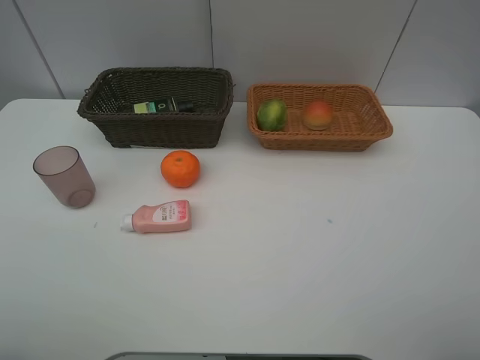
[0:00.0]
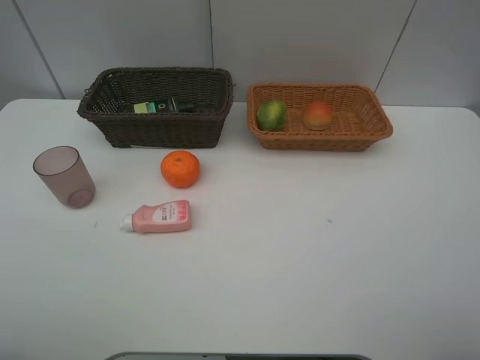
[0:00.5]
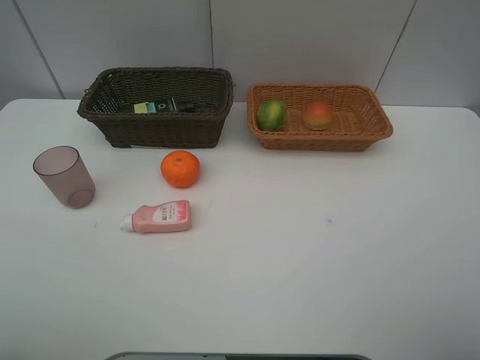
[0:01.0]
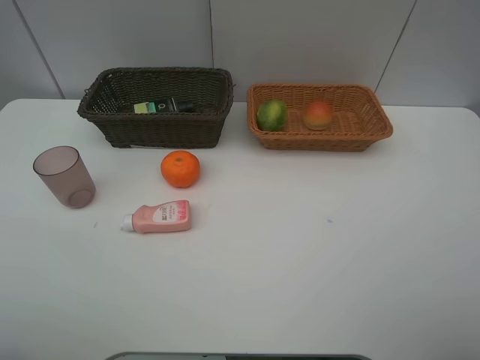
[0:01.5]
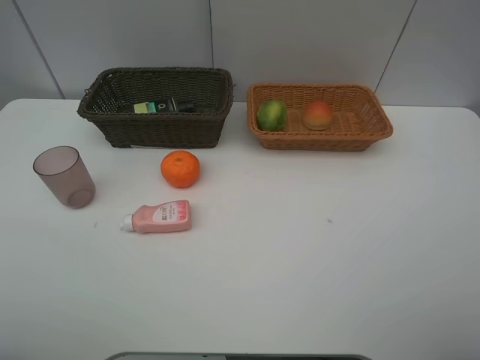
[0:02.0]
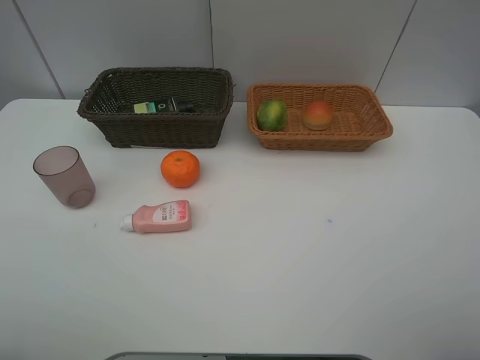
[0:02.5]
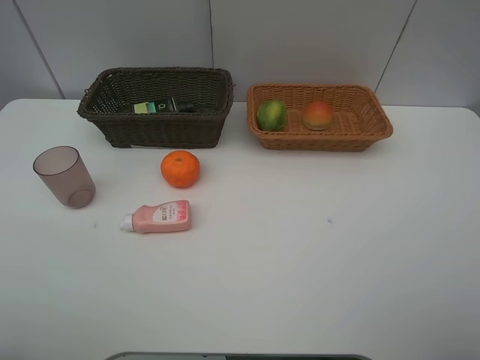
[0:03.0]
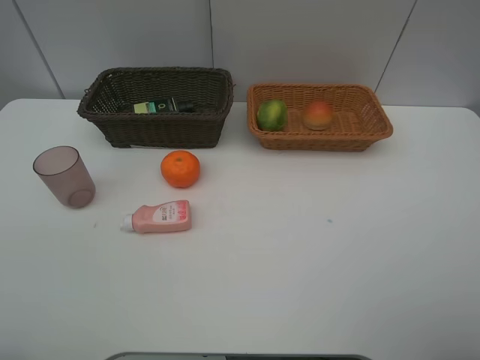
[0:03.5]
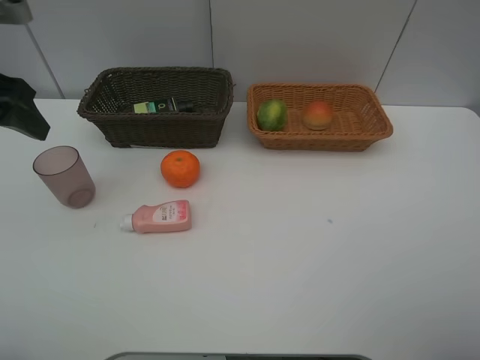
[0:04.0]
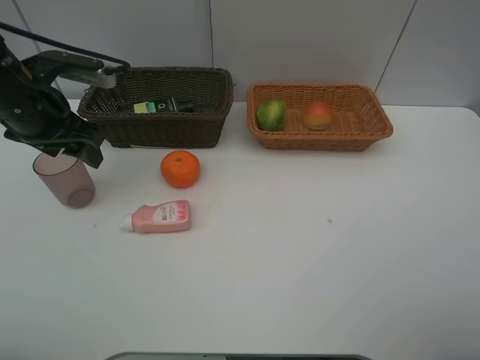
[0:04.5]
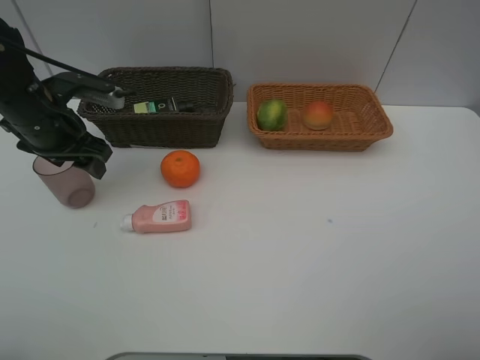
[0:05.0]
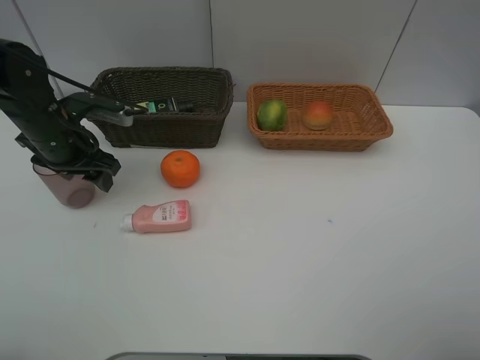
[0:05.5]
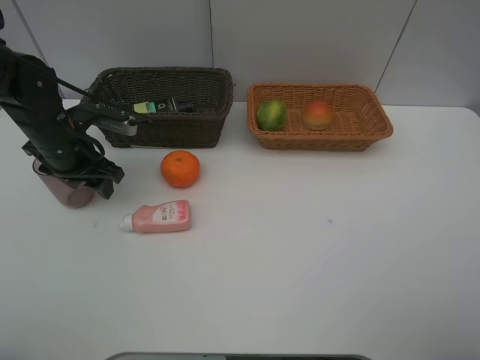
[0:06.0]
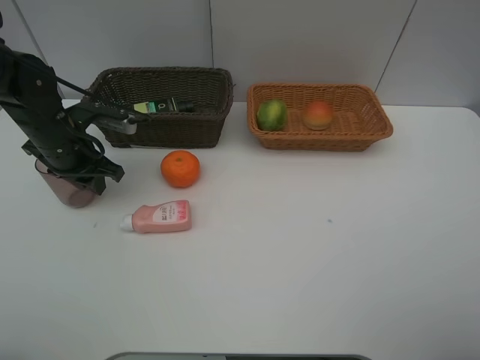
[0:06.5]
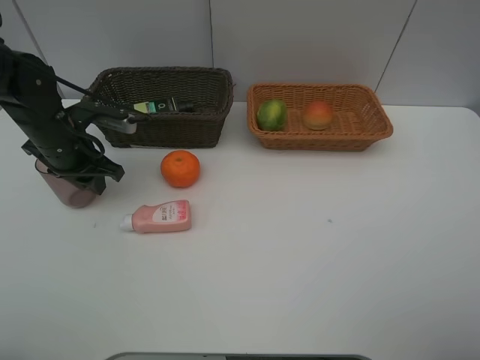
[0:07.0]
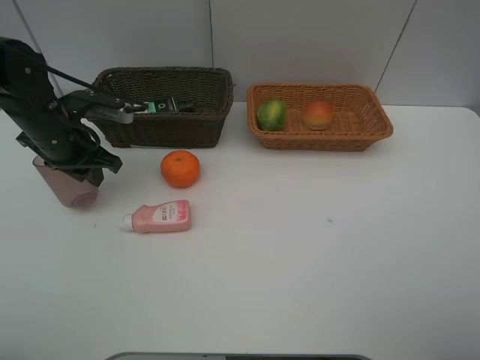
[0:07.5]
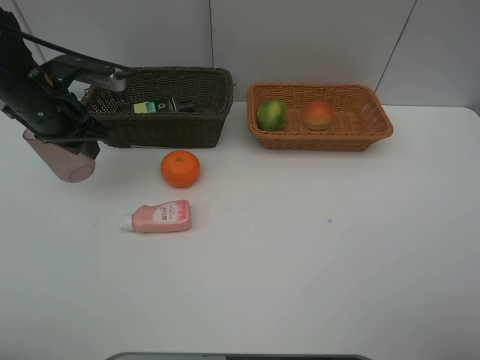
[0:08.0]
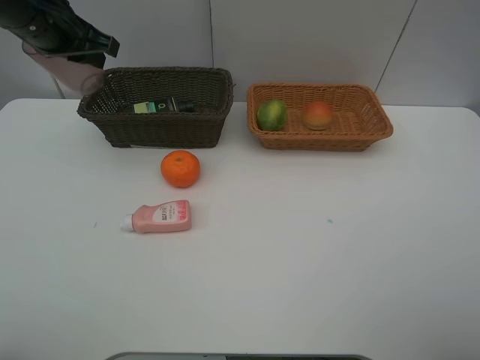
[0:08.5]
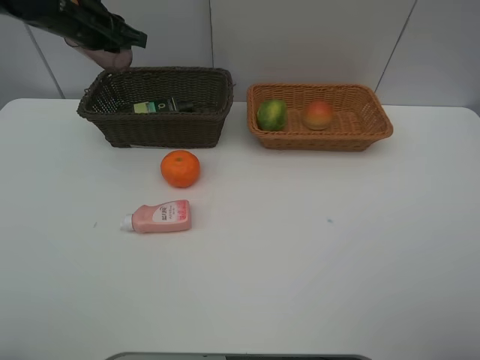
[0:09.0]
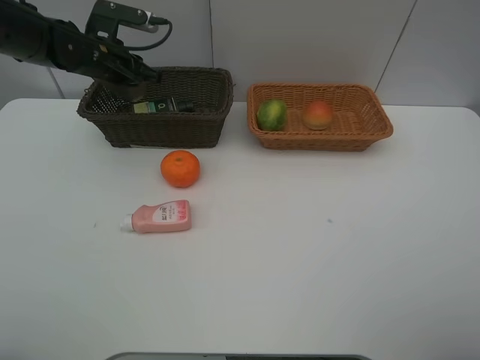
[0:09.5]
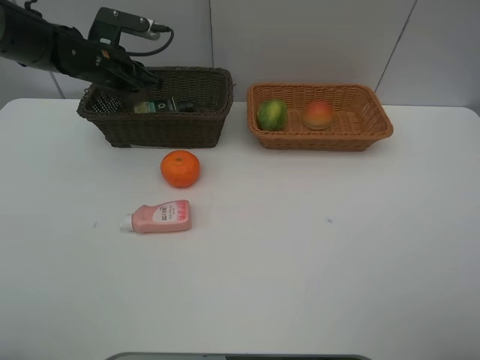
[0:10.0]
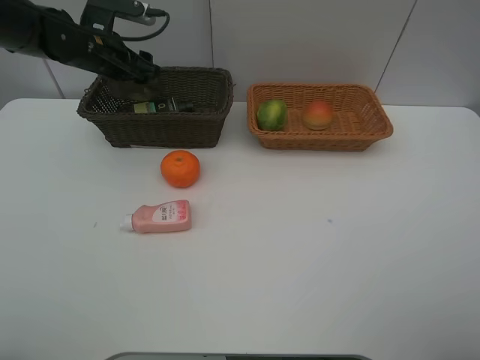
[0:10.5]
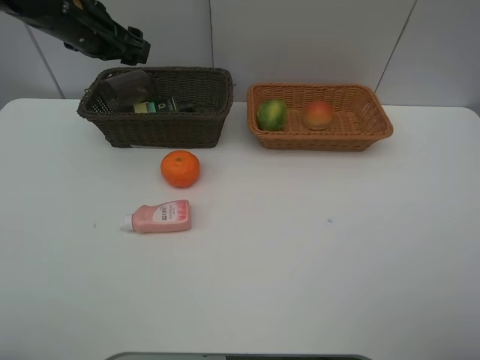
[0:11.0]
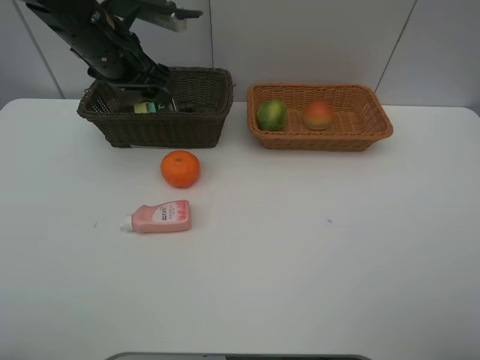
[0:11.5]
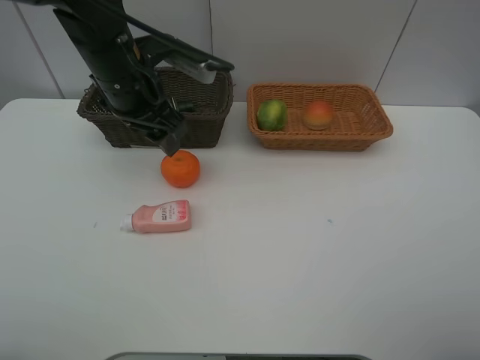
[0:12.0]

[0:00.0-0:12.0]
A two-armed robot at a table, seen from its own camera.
Task of the whole recording: place multiple objects separately in different baskets.
0:02.0 to 0:04.0: The left gripper goes approximately 25 cm forward.
0:04.0 to 0:06.0: The left gripper shifts approximately 15 cm downward and forward.
0:06.0 to 0:08.0: The left gripper goes roughly 5 cm upward, and closes its fingers.
0:08.0 to 0:10.0: The left gripper goes some 10 cm forward.
0:10.0 to 0:12.0: The left gripper is displaced backward, to the right and upward by some 15 cm, and opens its fingers.

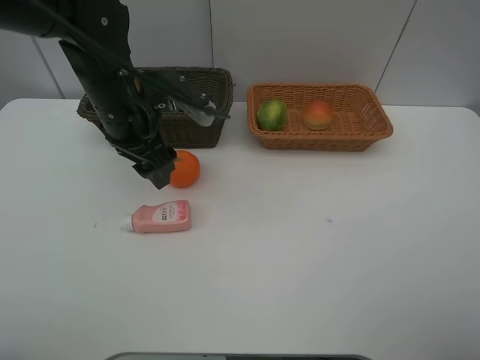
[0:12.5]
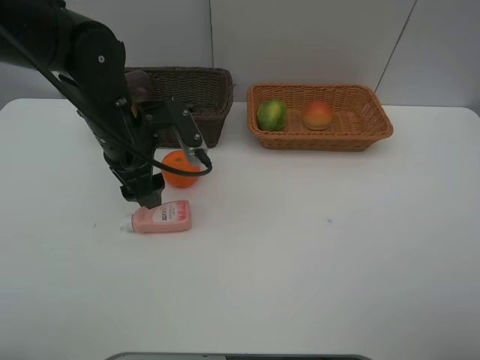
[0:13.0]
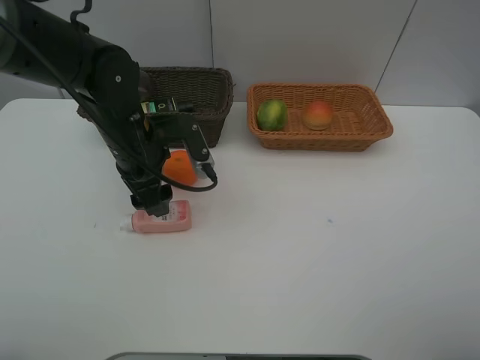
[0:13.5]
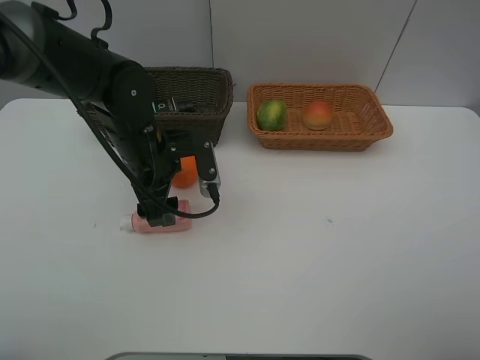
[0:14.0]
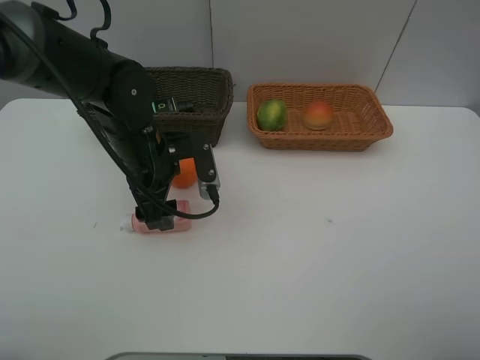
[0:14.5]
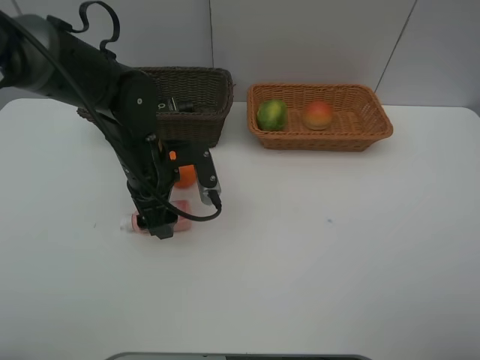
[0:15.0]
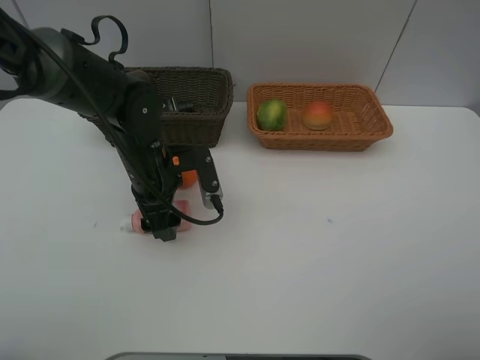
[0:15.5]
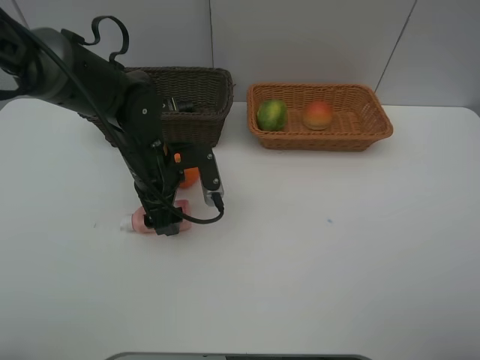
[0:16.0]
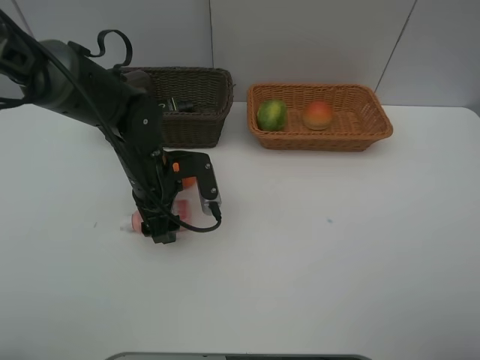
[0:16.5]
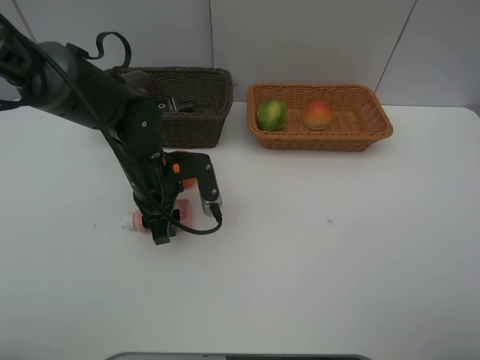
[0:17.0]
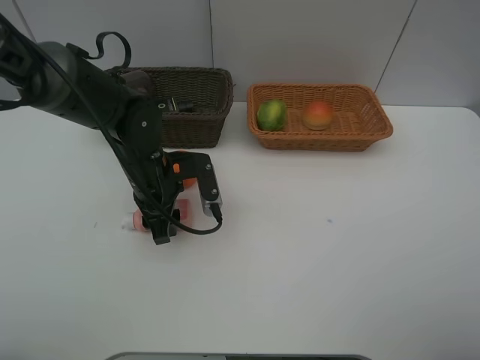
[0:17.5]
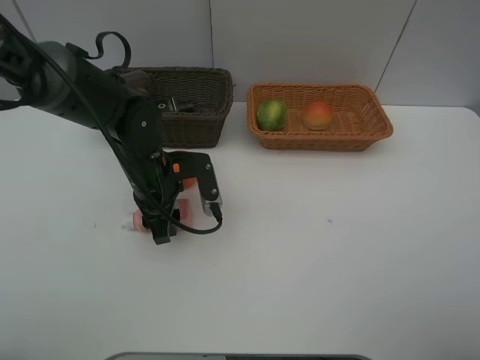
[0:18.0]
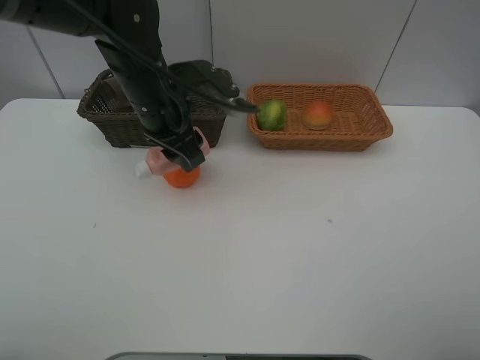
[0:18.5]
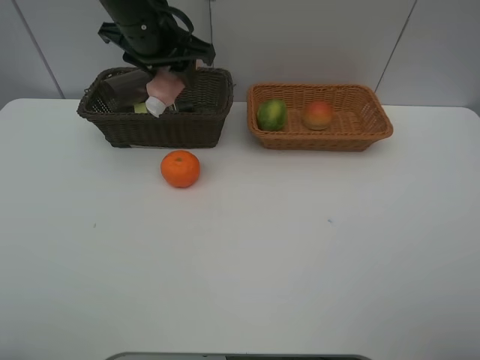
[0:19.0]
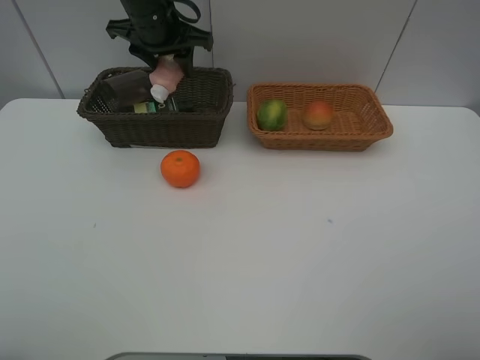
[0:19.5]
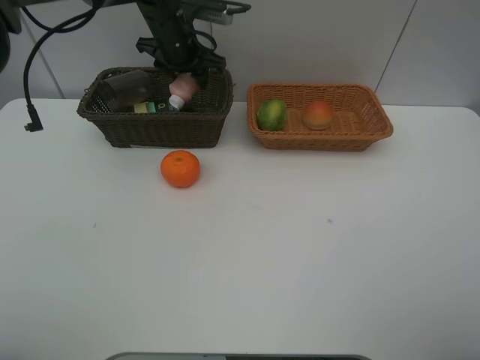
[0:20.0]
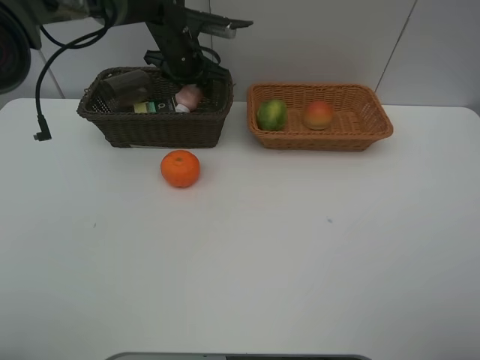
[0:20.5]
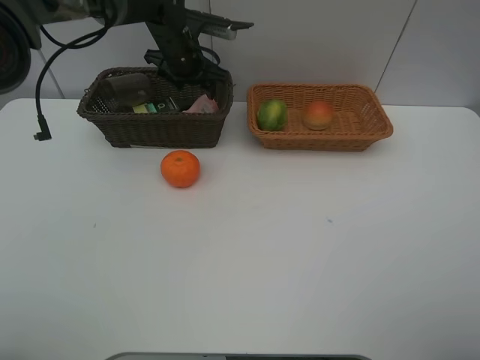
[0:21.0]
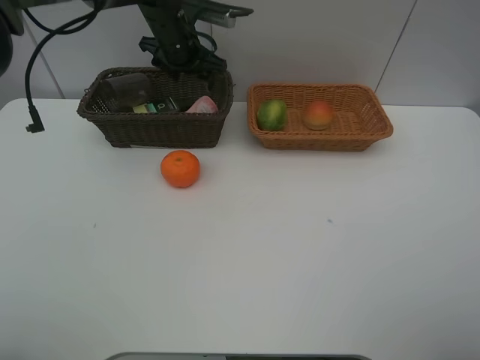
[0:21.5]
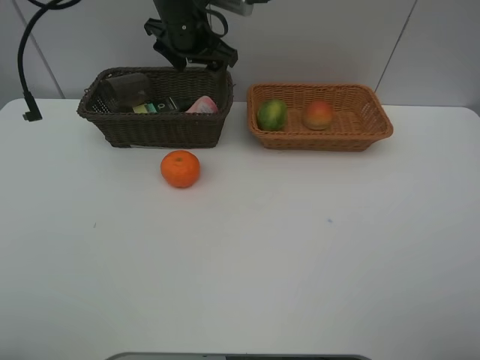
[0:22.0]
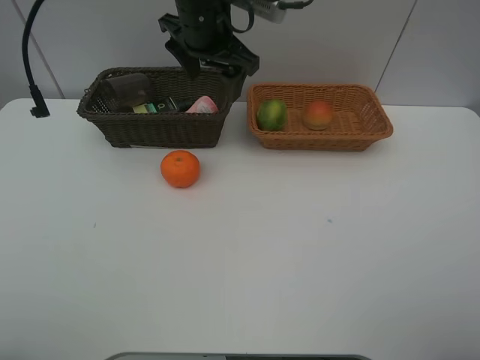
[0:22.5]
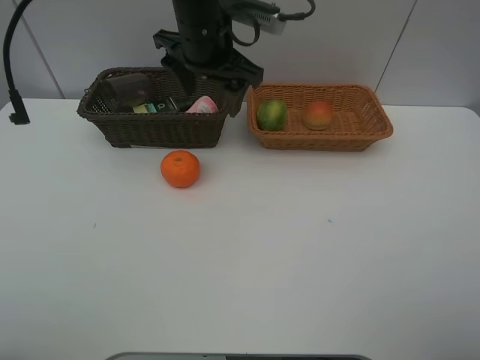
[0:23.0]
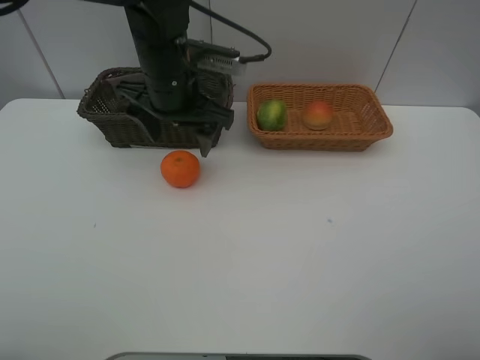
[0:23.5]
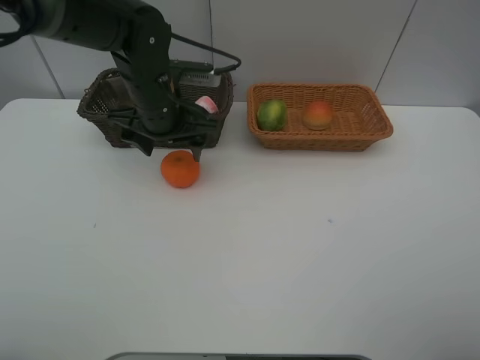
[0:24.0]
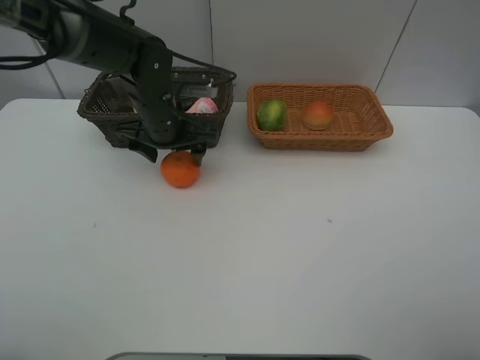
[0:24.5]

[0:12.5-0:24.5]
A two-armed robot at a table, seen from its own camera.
Task of the whole recording: place multiple objects separately in different baskets.
0:12.5 to 0:14.5: The left gripper heads downward, covering some 5 cm.
0:14.5 to 0:16.5: The grippers move only a little.
0:16.5 to 0:18.5: The left gripper moves upward, roughly 10 cm, and closes its fingers.
0:18.5 to 0:20.5: The left gripper shifts about 15 cm forward.
0:20.5 to 0:22.5: The left gripper goes roughly 15 cm backward, upward and to the right, and opens its fingers.
0:22.5 to 0:24.5: The left gripper shifts roughly 15 cm downward and to the left.

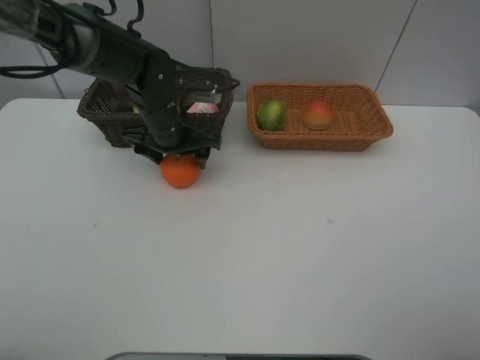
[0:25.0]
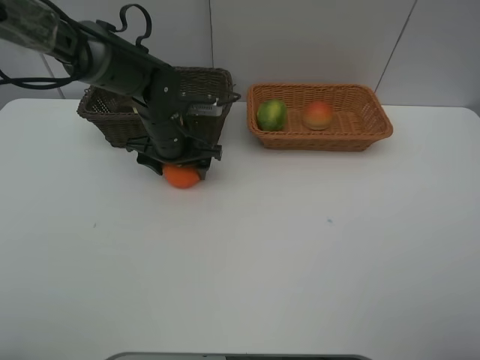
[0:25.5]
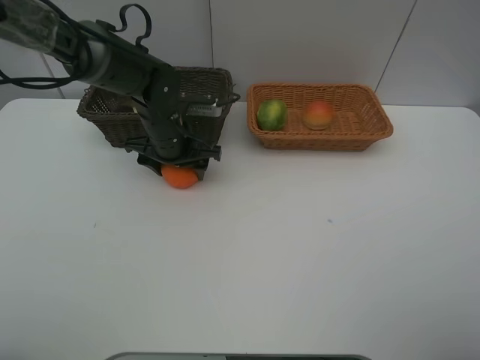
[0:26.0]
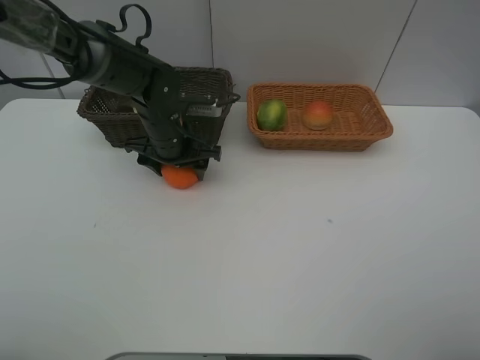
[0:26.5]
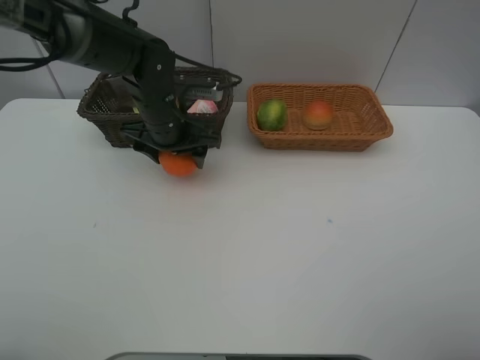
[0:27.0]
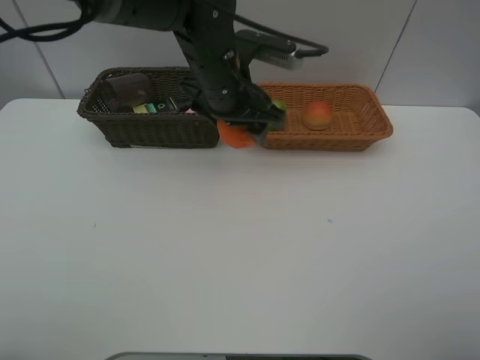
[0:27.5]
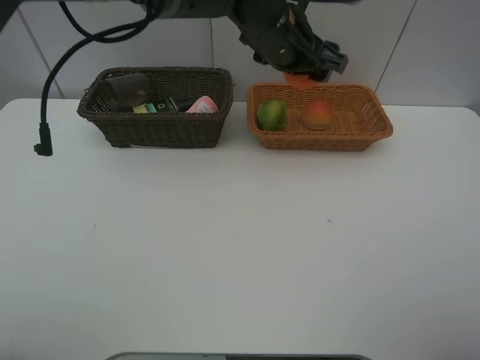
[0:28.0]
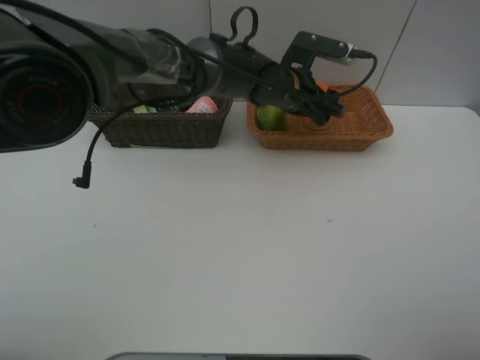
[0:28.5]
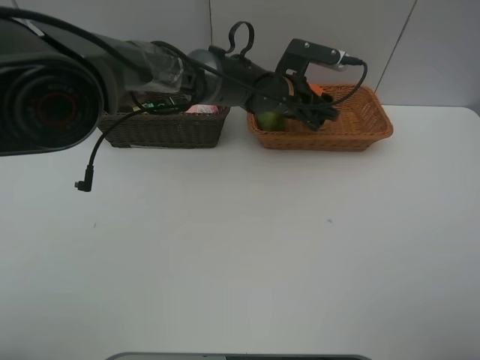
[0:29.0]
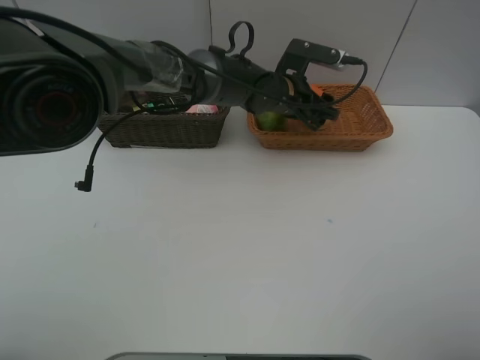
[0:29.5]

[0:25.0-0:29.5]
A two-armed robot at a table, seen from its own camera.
Task of the whole recording: place multiple objects separately in different baskets.
0:25.0 to 0:27.0: The grippers move only a little.
0:27.0 to 0:29.5: The left gripper goes roughly 15 cm to the right.
